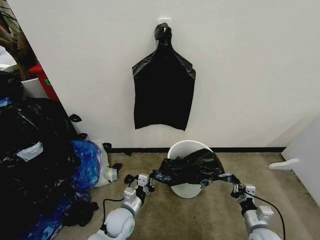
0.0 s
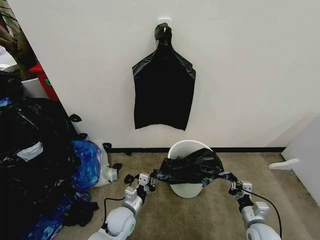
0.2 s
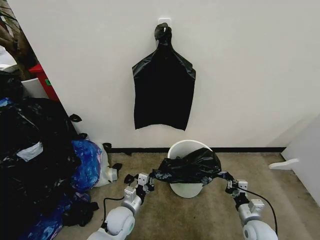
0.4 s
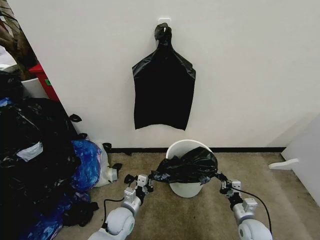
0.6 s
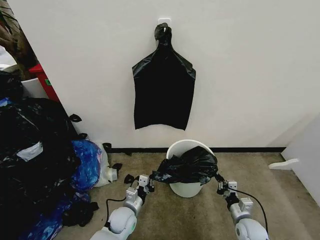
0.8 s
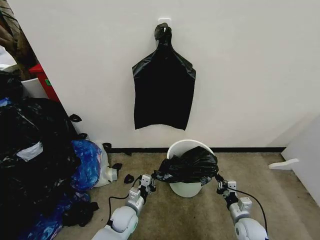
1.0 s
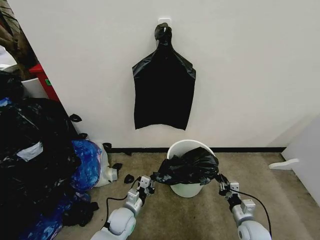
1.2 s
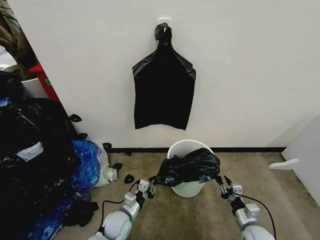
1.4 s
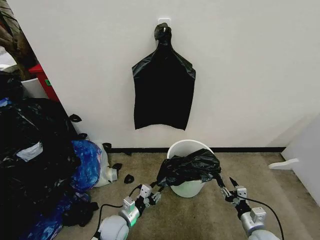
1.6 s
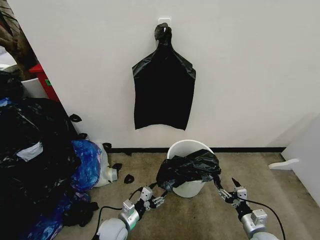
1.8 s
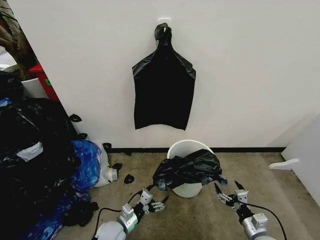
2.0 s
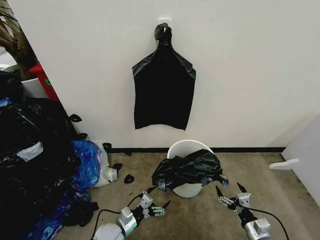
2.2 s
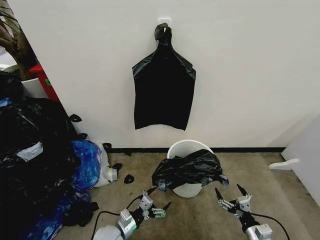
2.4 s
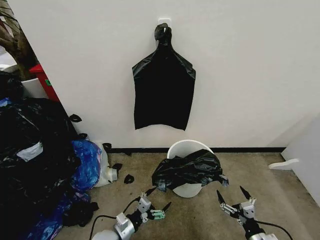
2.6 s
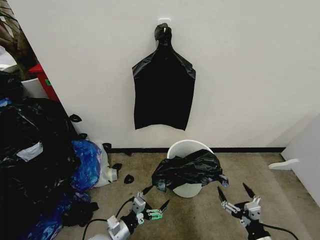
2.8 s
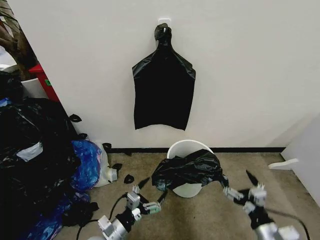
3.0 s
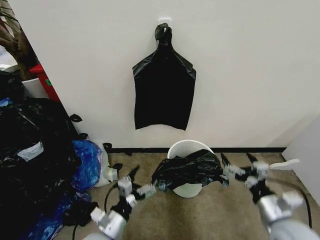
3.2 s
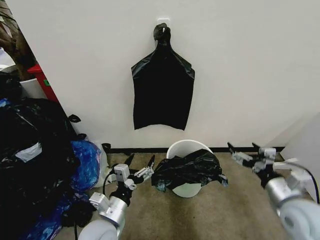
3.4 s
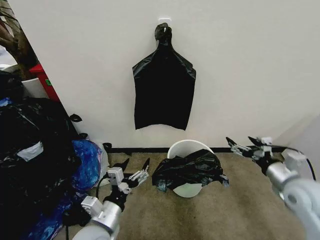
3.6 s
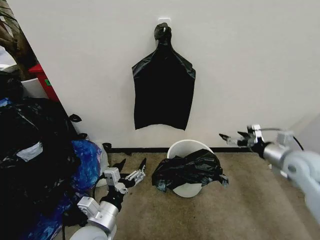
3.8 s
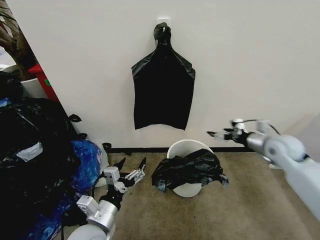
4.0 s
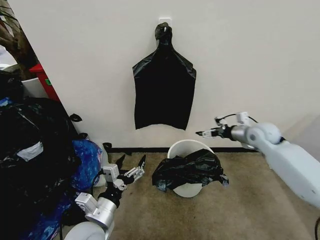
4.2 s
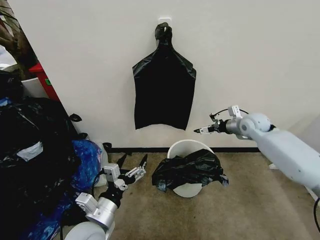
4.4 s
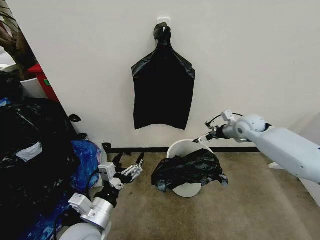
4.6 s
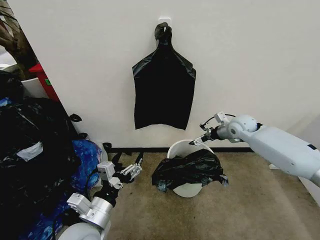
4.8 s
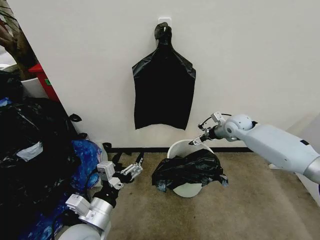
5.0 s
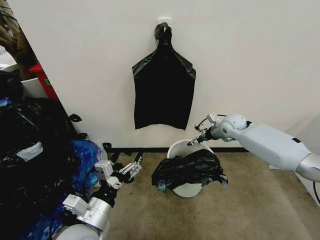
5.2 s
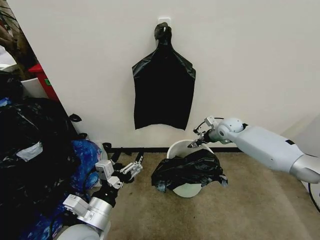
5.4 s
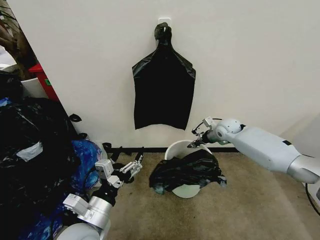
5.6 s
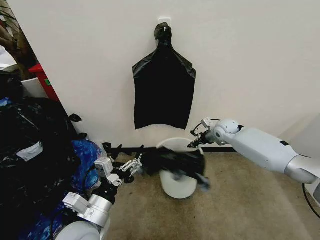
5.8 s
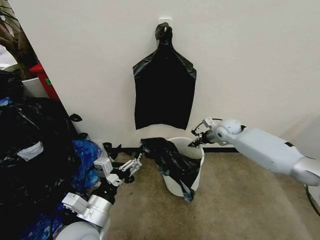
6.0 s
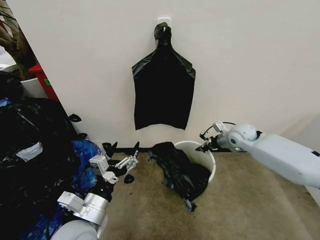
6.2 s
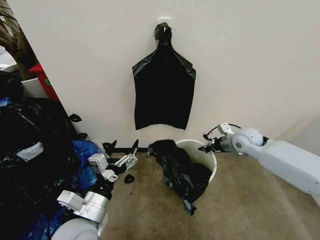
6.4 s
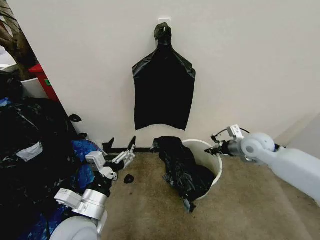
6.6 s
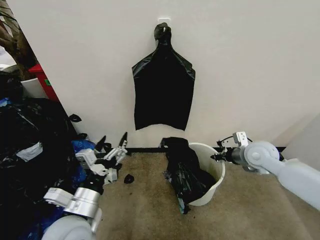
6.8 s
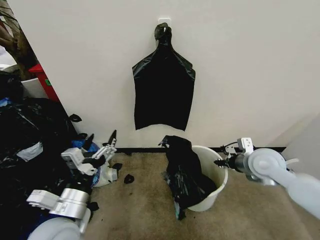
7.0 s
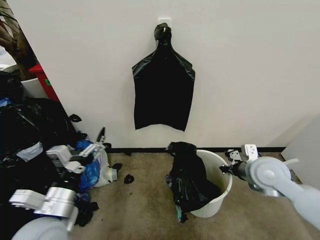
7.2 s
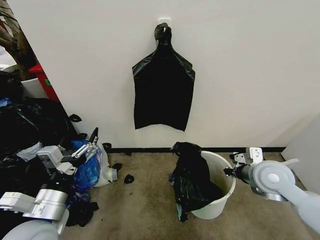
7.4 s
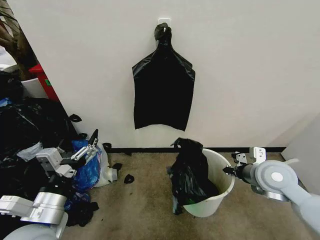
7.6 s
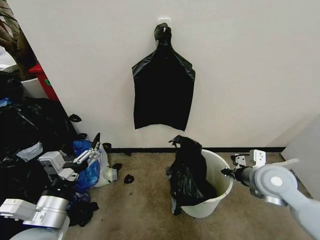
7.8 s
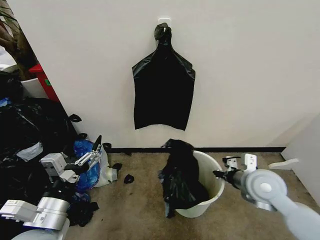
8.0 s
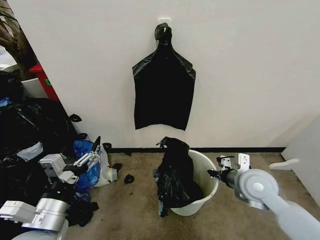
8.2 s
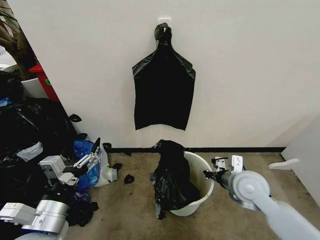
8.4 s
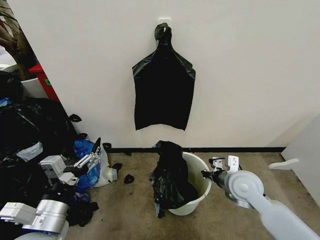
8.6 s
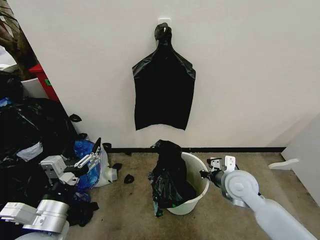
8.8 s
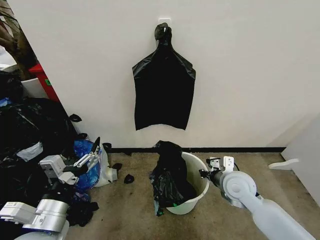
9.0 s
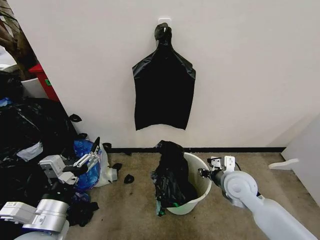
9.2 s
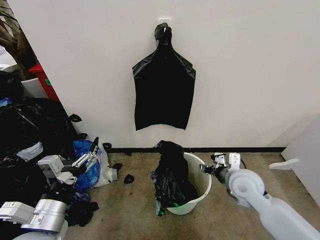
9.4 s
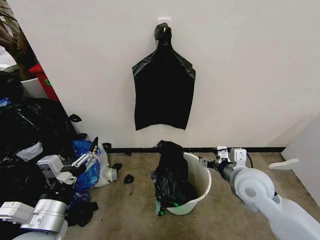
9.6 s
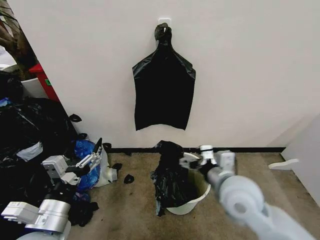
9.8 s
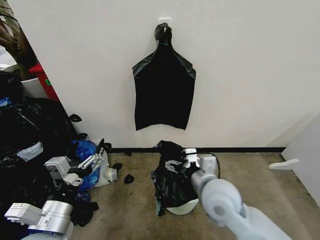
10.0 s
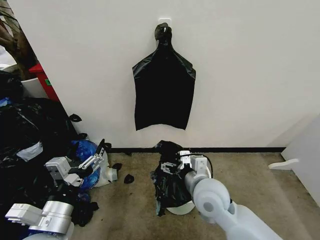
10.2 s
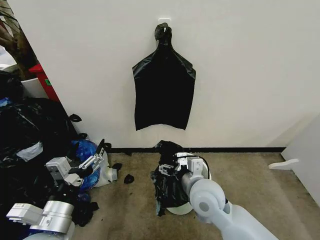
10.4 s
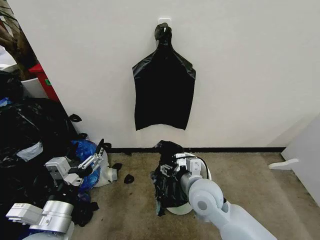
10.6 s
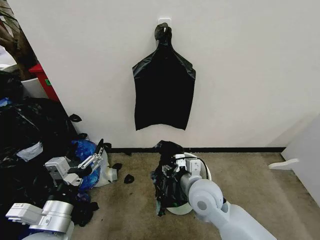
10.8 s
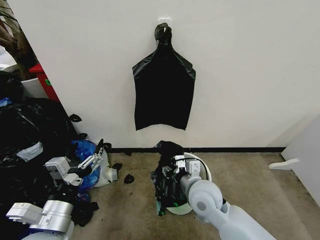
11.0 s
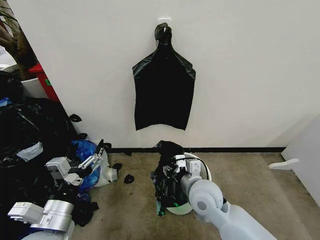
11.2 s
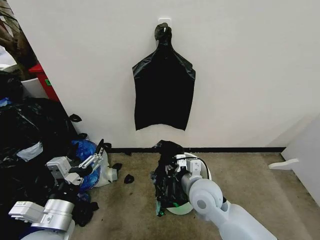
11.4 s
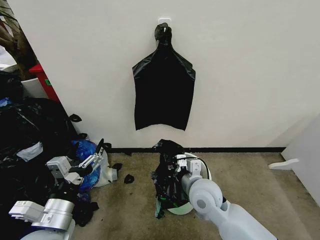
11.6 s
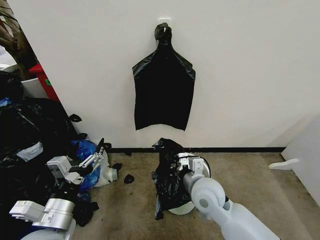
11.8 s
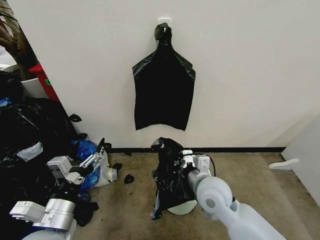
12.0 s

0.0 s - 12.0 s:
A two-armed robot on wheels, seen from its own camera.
Task of the whole recording: Place the garbage bag over the trash bin.
0.0 s - 1.6 s: The right gripper opens its fingers. Meanwhile the left gripper opens its fingers.
1.6 s - 3.0 s: The left gripper travels backward and upward by some 10 cm, and opens. Meanwhile the right gripper shifts some 15 cm upward and backward, and opens.
3.0 s - 4.4 s: The right gripper heads forward, covering roughly 40 cm, while the left gripper goes roughly 10 cm upward.
4.4 s - 6.0 s: The right gripper is displaced to the left and downward by roughly 10 cm, and closes up.
6.0 s - 7.6 s: The left gripper is displaced to the left and upward by about 10 cm. The right gripper travels backward by some 25 cm.
7.6 s - 9.0 s: The right gripper travels downward and to the left by roughly 10 cm.
9.0 s - 10.4 s: The right gripper heads to the left, covering approximately 10 cm, and opens its fingers.
10.4 s - 12.0 s: The right gripper closes.

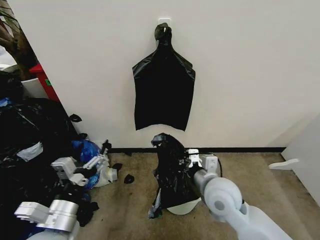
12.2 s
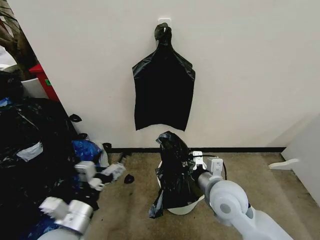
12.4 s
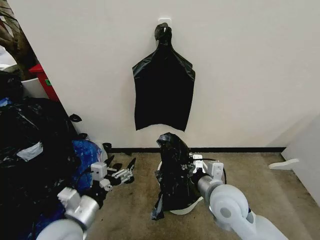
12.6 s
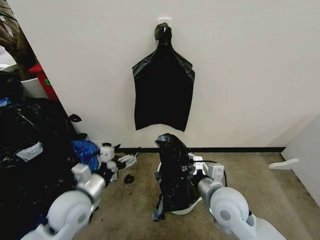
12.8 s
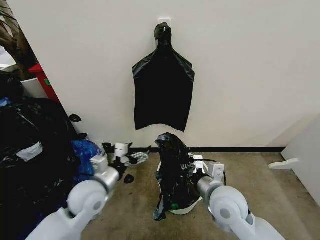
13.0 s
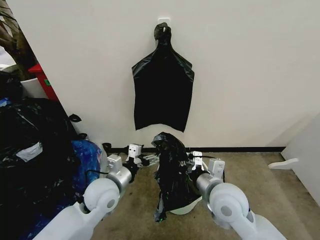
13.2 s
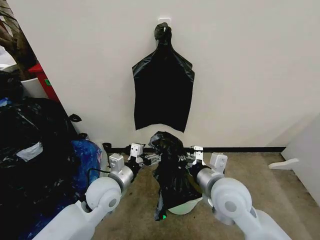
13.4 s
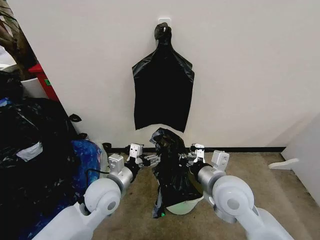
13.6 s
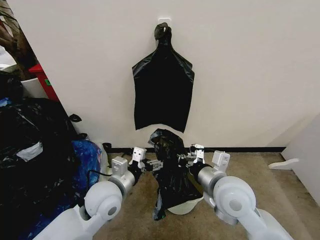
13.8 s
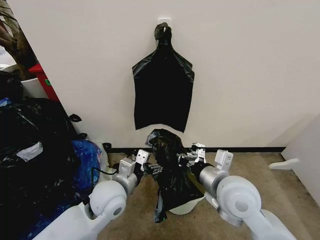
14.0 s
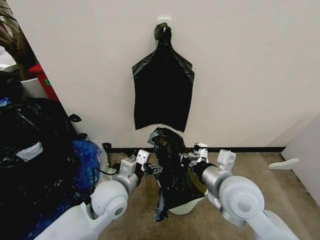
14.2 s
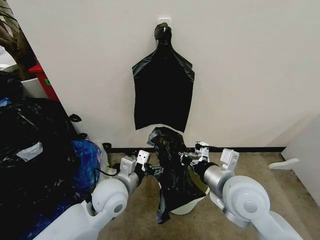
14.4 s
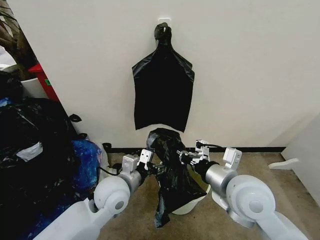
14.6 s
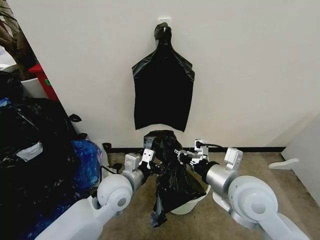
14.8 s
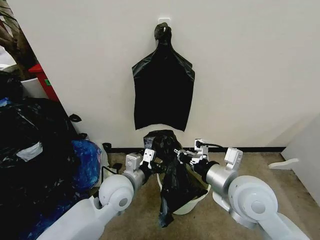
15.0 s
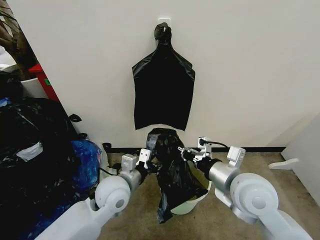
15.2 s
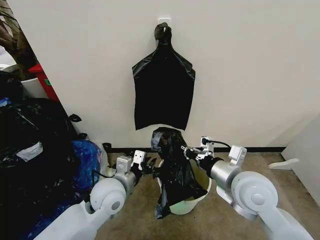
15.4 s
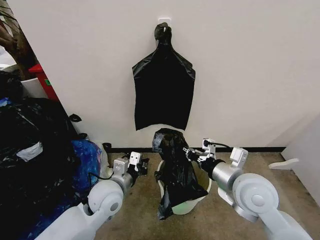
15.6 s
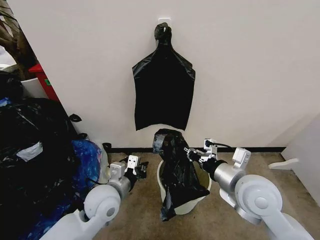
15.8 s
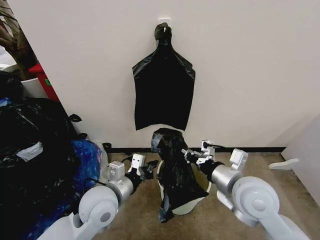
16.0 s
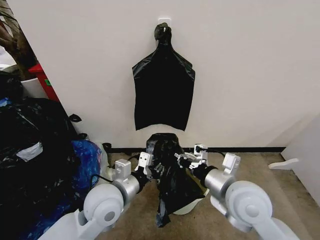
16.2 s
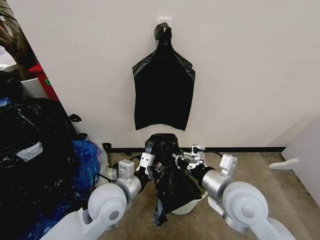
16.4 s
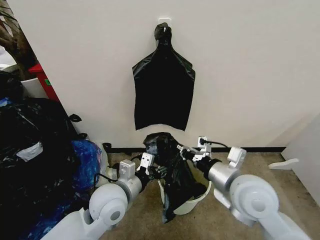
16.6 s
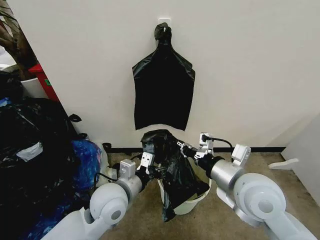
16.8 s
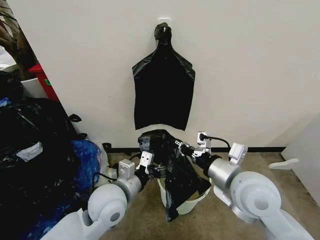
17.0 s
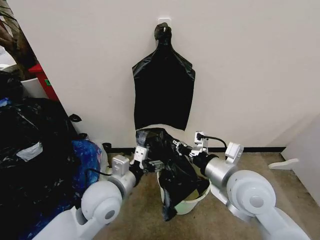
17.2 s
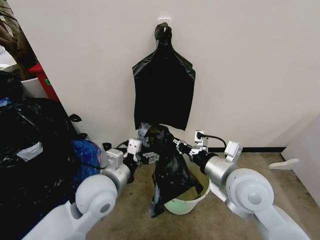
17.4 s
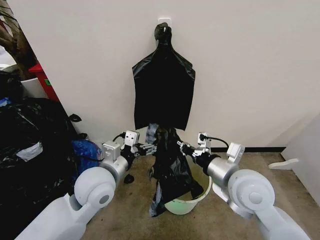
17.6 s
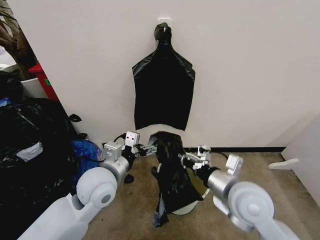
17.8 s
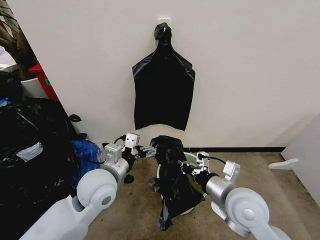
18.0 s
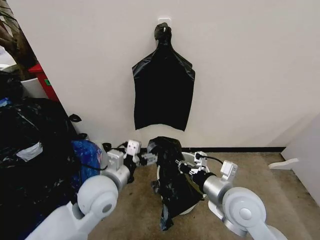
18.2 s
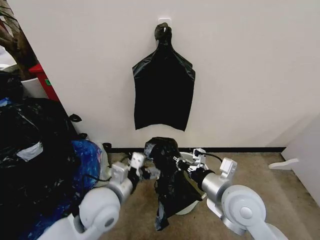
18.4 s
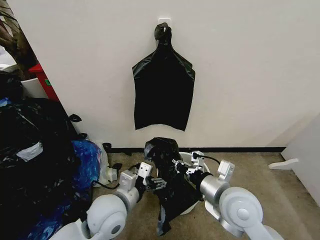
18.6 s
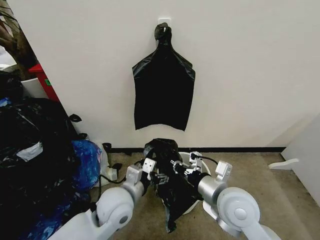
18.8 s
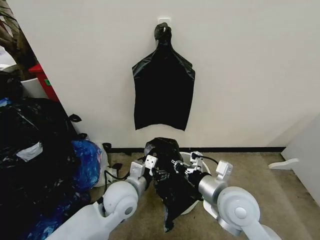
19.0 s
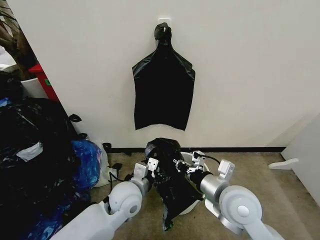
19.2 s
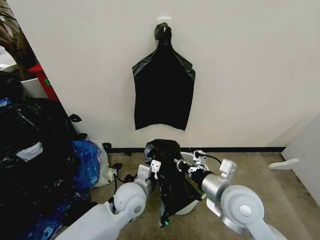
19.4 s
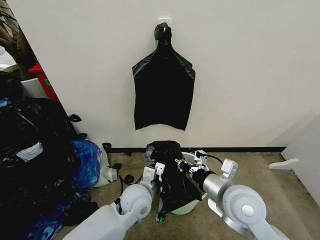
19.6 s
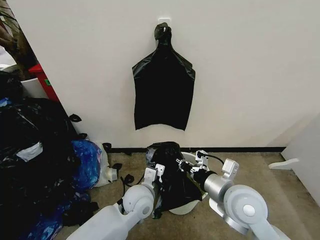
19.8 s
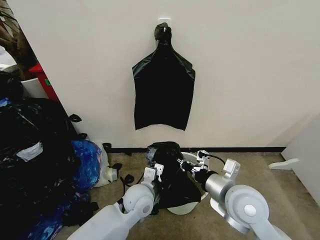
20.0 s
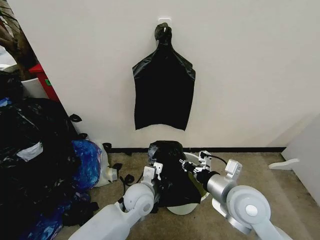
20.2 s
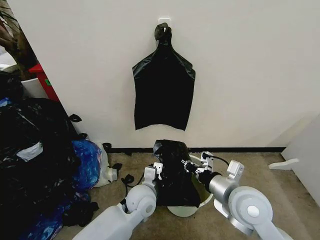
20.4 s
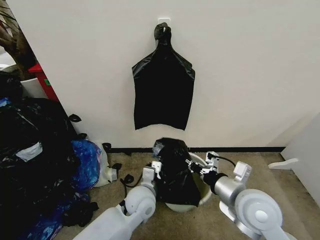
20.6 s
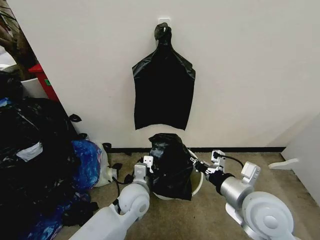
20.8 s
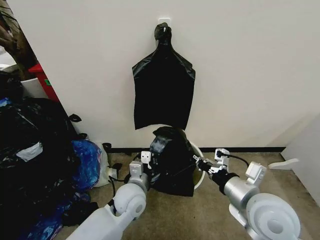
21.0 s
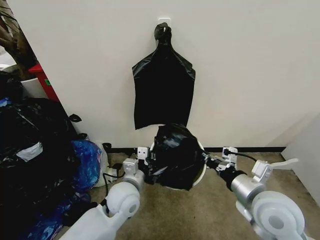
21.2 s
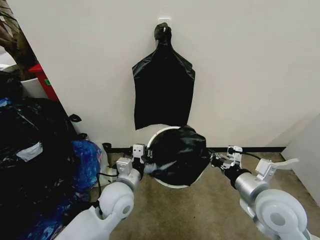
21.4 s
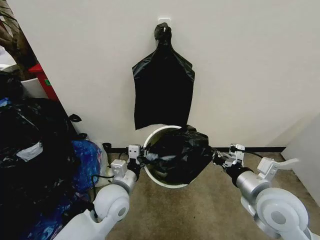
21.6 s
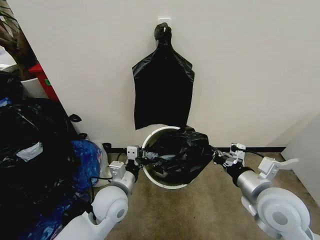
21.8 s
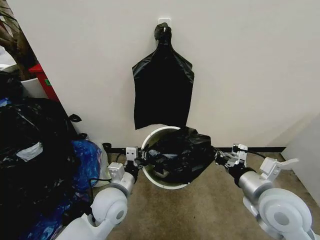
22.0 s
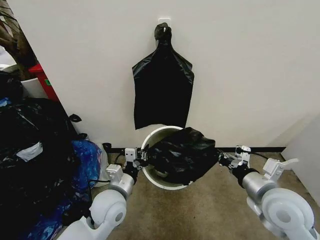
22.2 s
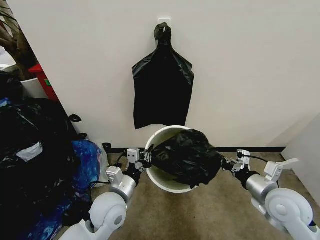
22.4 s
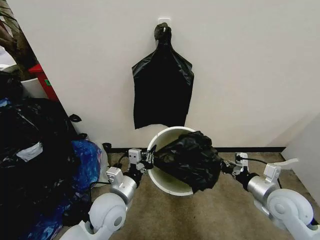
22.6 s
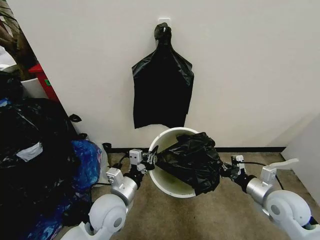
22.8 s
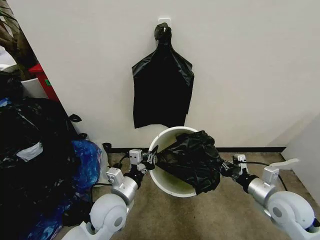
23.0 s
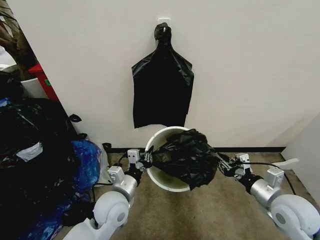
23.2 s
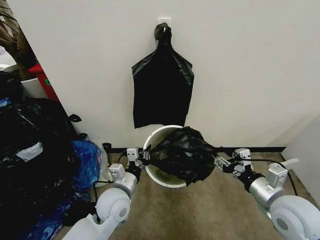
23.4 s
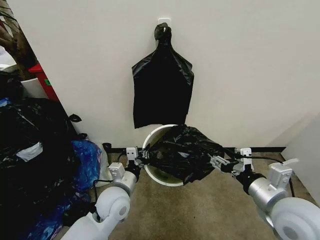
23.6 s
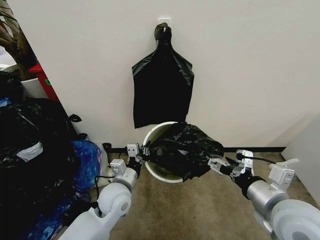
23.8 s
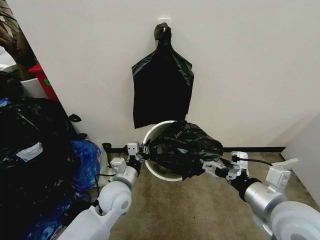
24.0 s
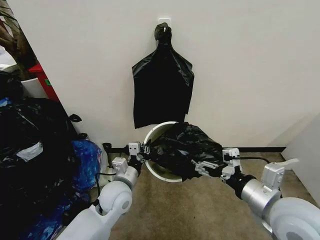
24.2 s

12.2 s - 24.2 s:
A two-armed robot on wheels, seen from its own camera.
Task of the whole recording: Place the garbage bag over the trash bin.
12.2 s - 13.8 s: The left gripper is displaced forward and to the right by roughly 15 cm. The right gripper shifts by some 5 cm.
13.8 s - 15.2 s: The left gripper closes.
15.2 s - 16.6 s: The left gripper closes and opens again.
16.6 s - 18.2 s: The left gripper ends up approximately 5 cm from where it was.
18.2 s - 19.8 s: The left gripper moves downward and to the right, some 15 cm, and closes up.
19.8 s - 21.2 s: The right gripper changes place by about 5 cm. The left gripper closes.
21.2 s - 22.6 s: The left gripper ends up roughly 5 cm from where it was; the right gripper is displaced to the right and downward by roughly 15 cm.
22.6 s - 24.2 s: The right gripper goes roughly 15 cm upward, to the left and backward, and opens up.
